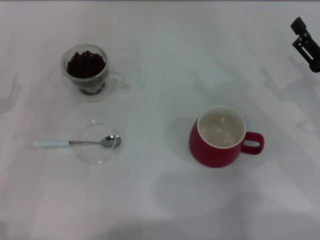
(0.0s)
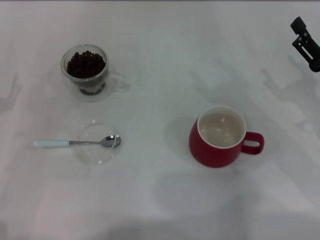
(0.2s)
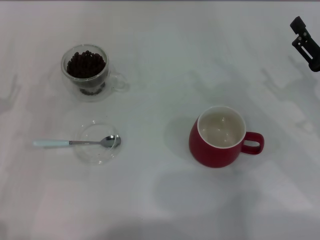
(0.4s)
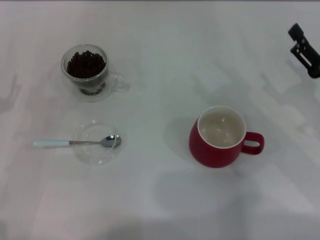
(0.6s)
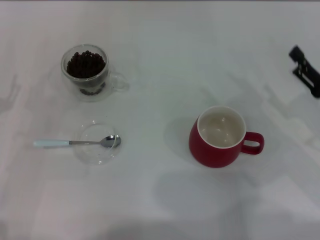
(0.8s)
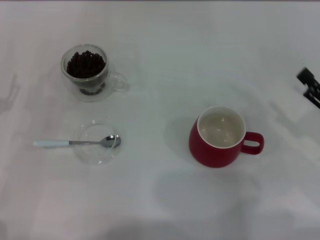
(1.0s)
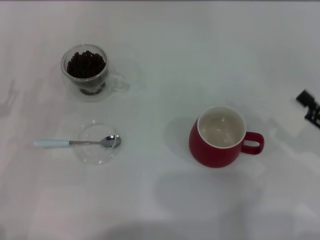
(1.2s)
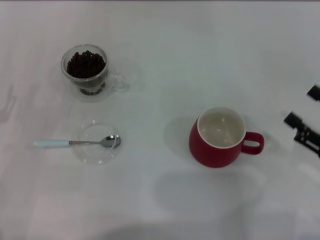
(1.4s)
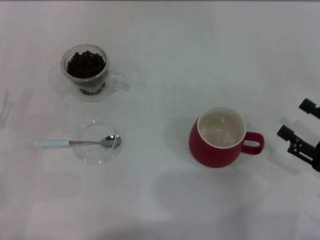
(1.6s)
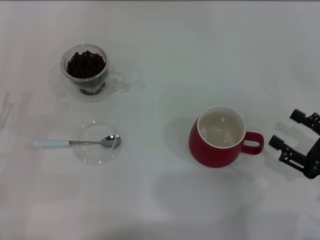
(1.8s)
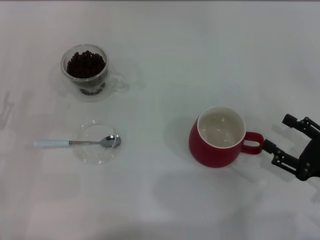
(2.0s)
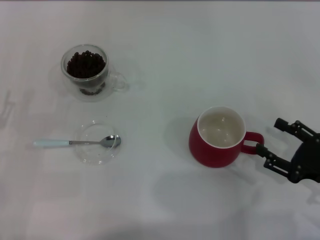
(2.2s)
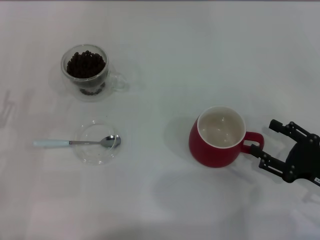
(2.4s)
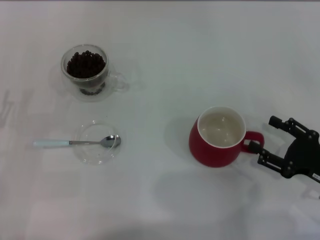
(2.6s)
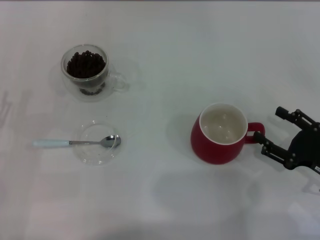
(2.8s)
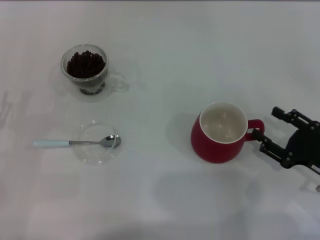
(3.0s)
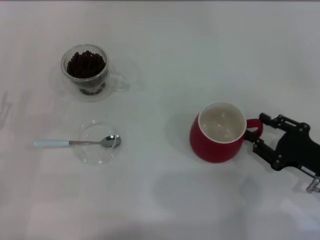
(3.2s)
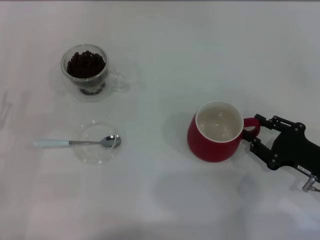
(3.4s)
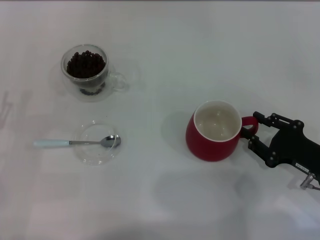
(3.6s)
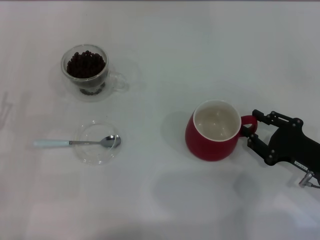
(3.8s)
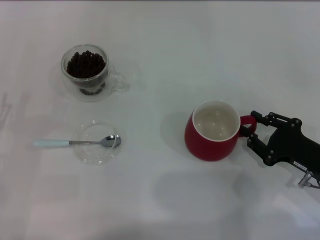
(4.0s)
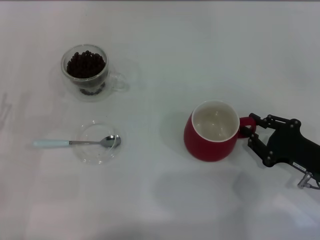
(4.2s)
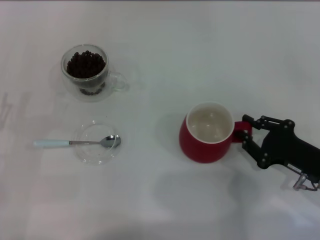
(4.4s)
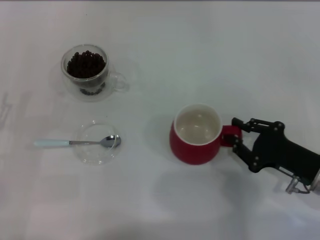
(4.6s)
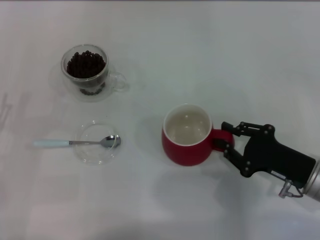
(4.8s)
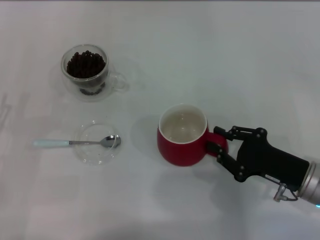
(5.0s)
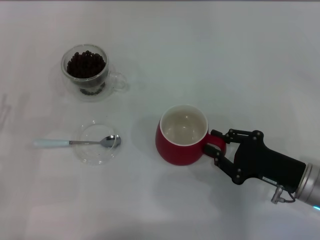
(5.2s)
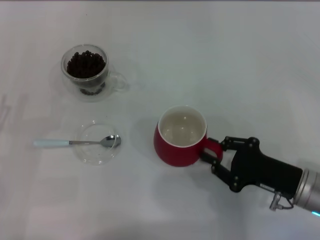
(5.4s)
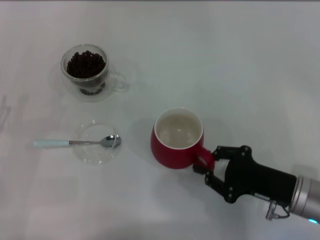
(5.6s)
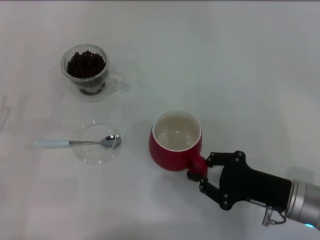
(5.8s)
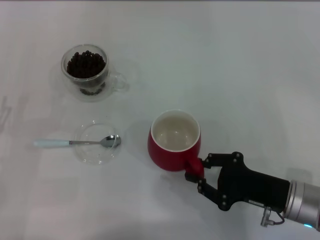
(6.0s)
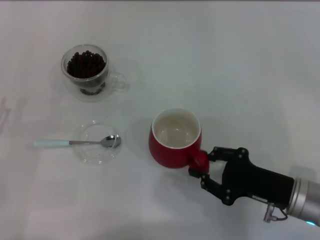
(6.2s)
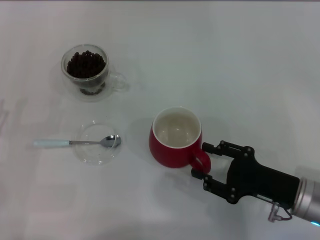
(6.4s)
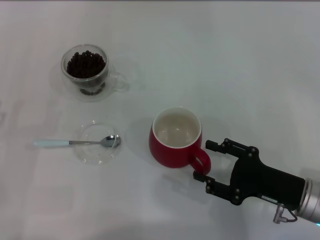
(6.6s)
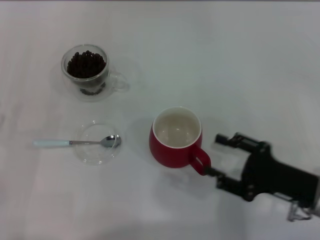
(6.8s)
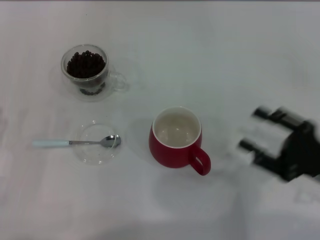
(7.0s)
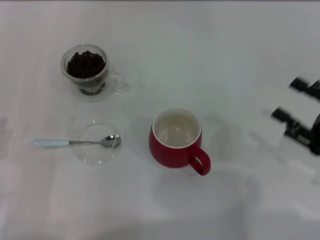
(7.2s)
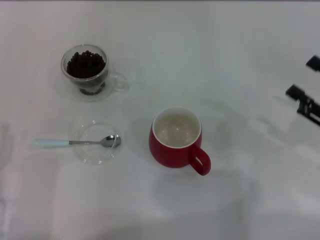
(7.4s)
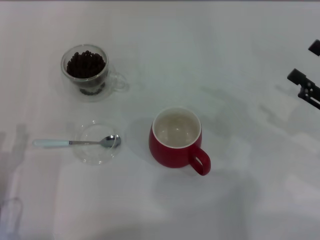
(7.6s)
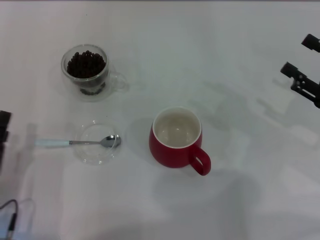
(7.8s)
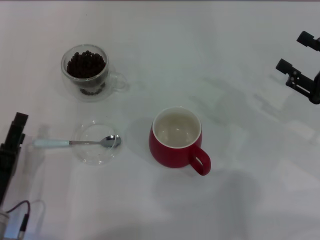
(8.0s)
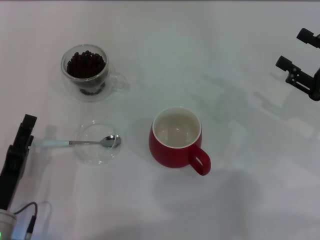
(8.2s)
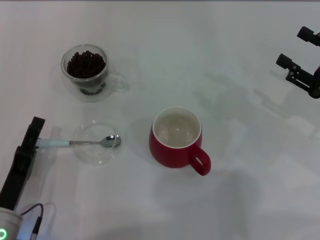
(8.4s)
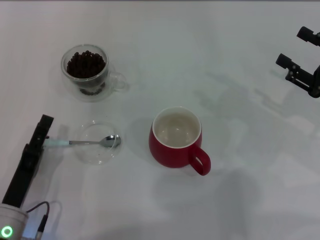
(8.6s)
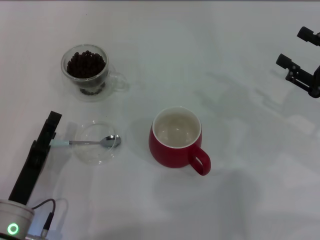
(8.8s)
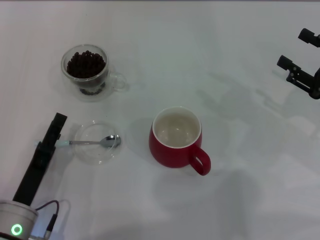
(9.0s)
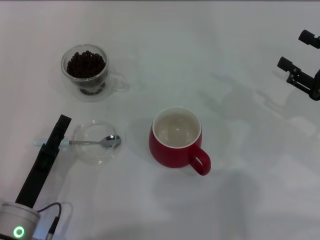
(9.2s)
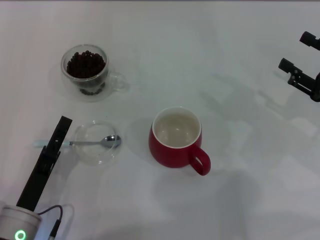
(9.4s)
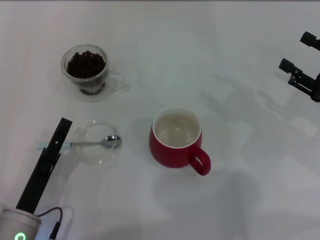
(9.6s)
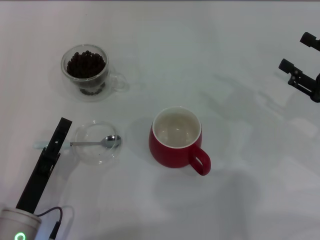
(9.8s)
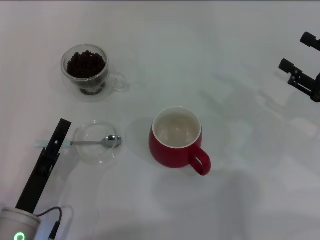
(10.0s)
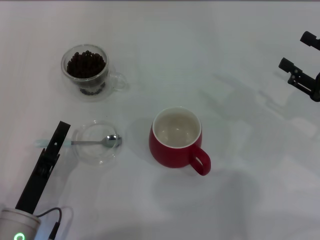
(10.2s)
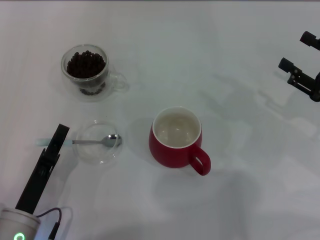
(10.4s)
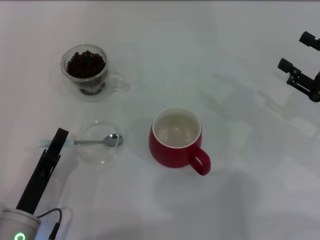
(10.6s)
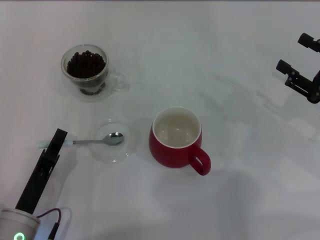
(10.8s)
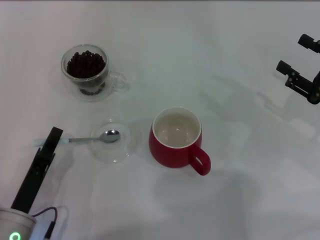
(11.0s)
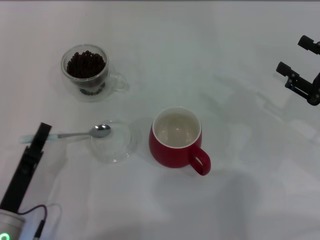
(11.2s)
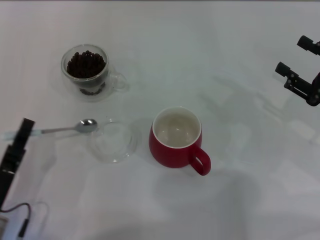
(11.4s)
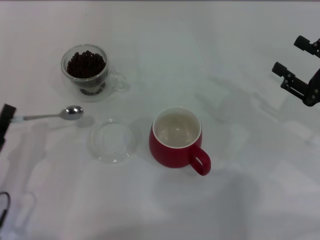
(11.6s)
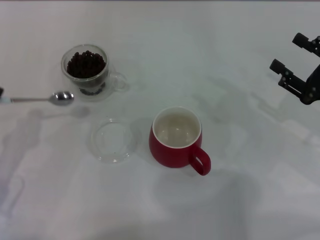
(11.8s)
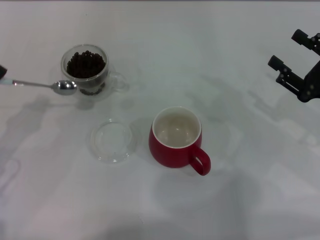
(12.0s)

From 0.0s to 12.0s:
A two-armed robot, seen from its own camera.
Task of the whole recording: Use a blue spoon to take out the coffee beans from the glass and pour them into the red cup.
Step, from 0.0s to 6.6s: Move the cup to the center of view with the left gripper.
Step, from 7.0s to 11.2s: Pick up the spoon with the right gripper.
From 0.0s to 1.6s: The right gripper heads backward, covering some 10 cm.
From 1.6s to 3.0s: The grippers make only small movements.
From 3.0s to 4.4s: The right gripper closes its fingers.
From 4.4s to 6.0s: The right gripper travels to the left by about 5 cm.
From 6.0s to 7.6s: The left gripper shifts roughly 10 cm backward and to the right. The right gripper moves to the right and upward, about 15 cm, and opens its fingers.
From 7.6s to 9.0s: The left gripper is displaced to the right by roughly 5 cm.
From 9.0s to 10.4s: The left gripper closes its fingers.
From 10.4s to 12.0s: The left gripper moves to the left, forward and upward, about 15 cm, and closes.

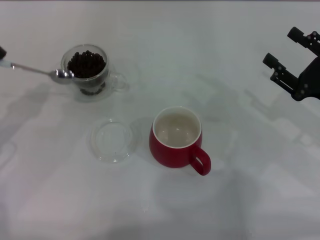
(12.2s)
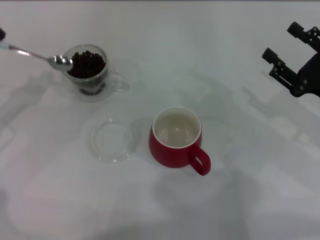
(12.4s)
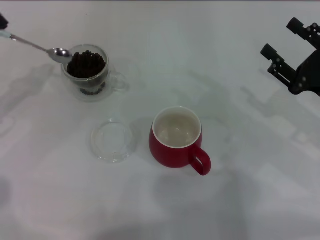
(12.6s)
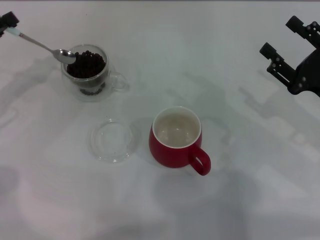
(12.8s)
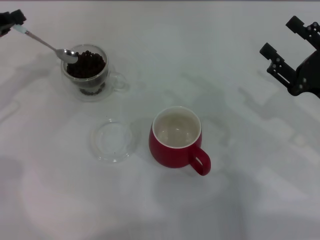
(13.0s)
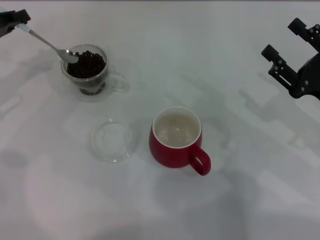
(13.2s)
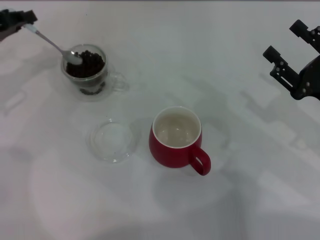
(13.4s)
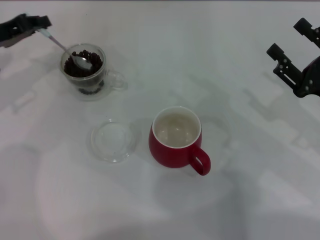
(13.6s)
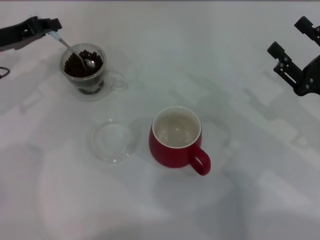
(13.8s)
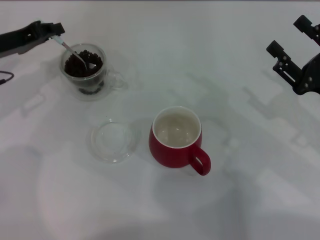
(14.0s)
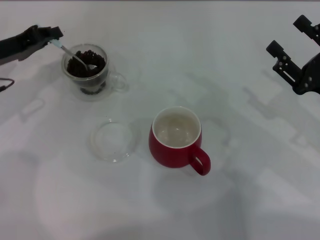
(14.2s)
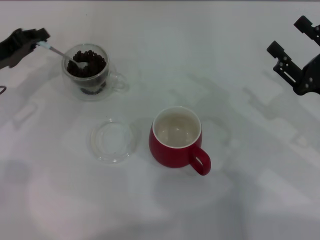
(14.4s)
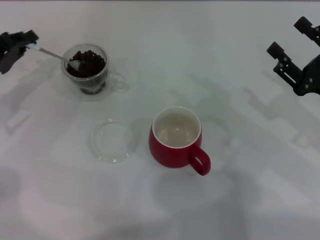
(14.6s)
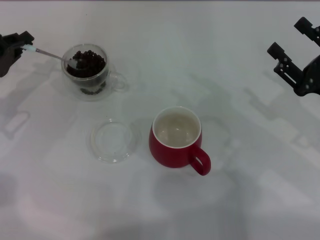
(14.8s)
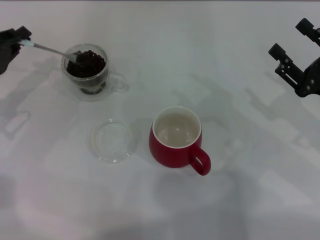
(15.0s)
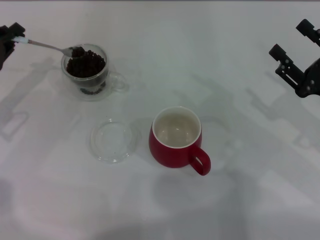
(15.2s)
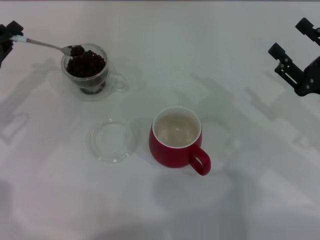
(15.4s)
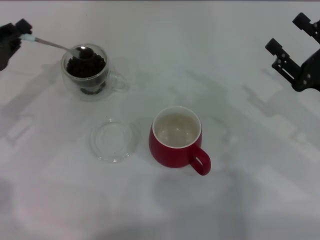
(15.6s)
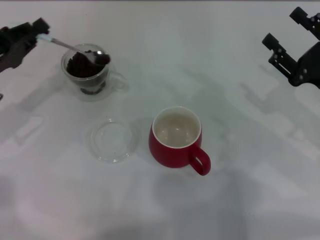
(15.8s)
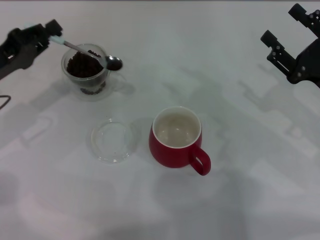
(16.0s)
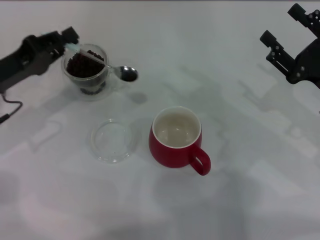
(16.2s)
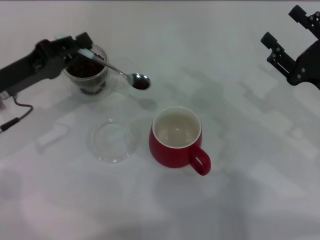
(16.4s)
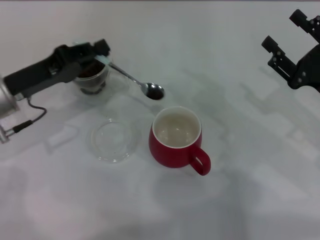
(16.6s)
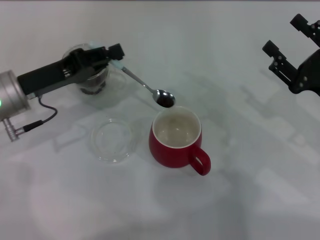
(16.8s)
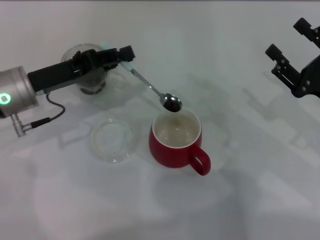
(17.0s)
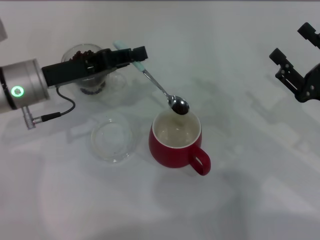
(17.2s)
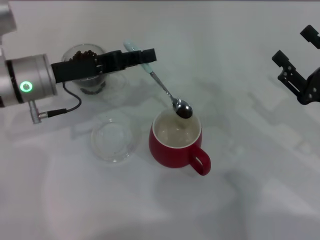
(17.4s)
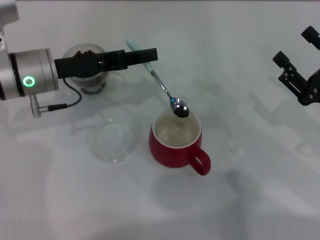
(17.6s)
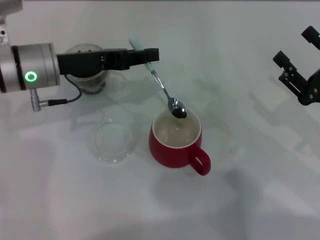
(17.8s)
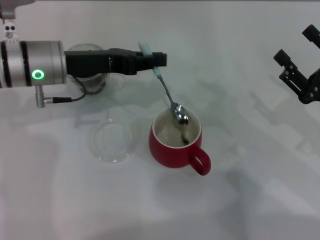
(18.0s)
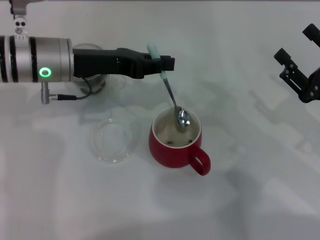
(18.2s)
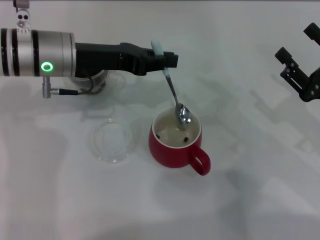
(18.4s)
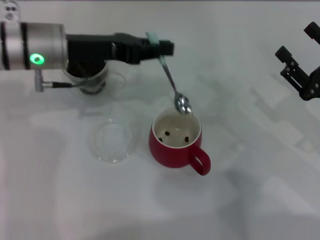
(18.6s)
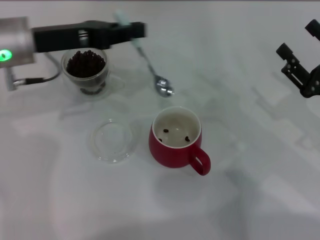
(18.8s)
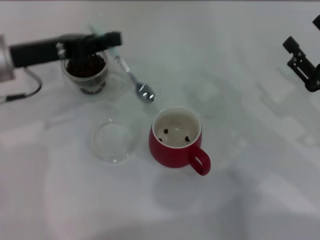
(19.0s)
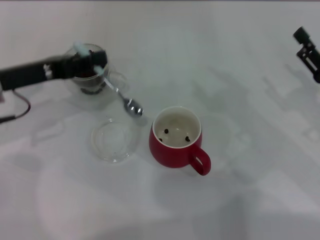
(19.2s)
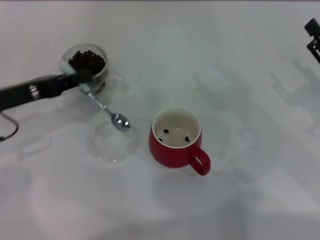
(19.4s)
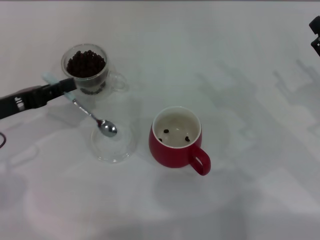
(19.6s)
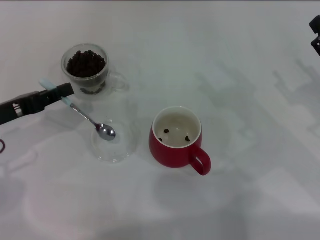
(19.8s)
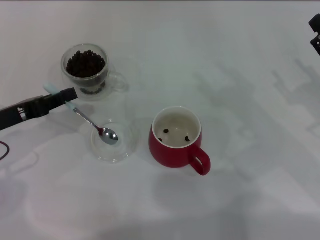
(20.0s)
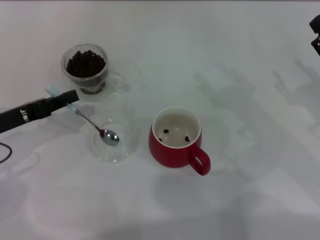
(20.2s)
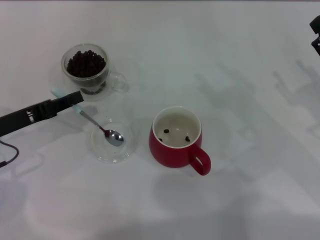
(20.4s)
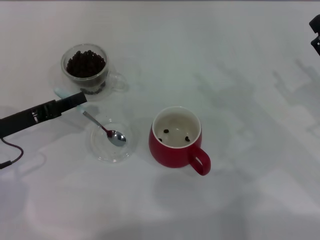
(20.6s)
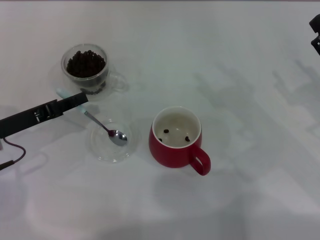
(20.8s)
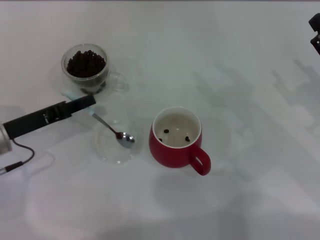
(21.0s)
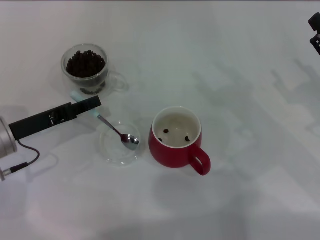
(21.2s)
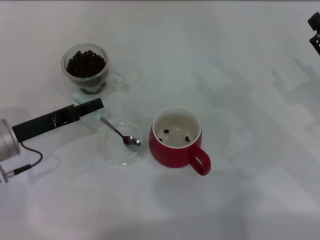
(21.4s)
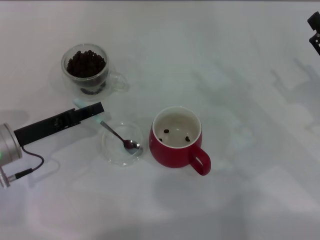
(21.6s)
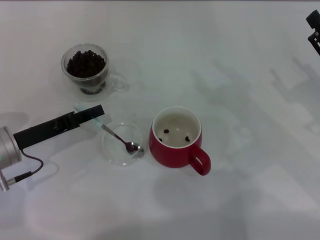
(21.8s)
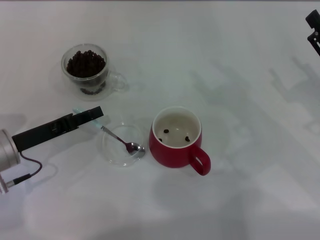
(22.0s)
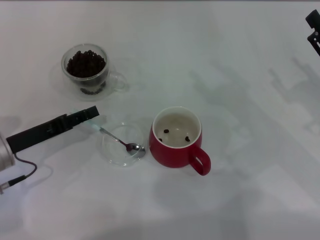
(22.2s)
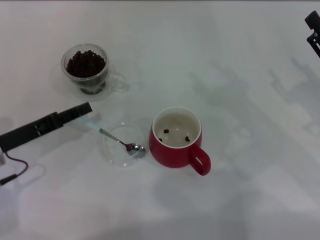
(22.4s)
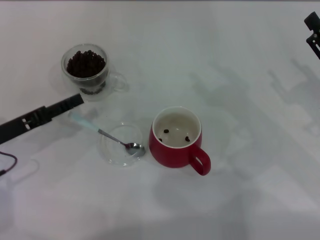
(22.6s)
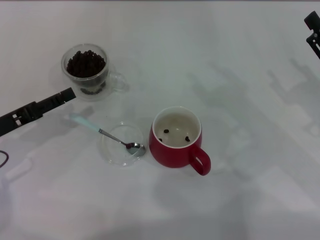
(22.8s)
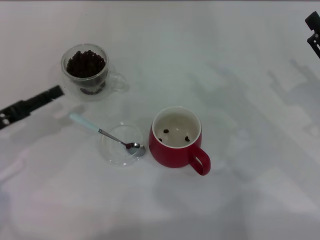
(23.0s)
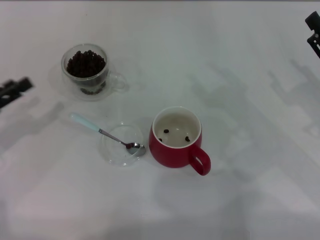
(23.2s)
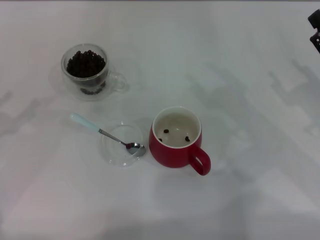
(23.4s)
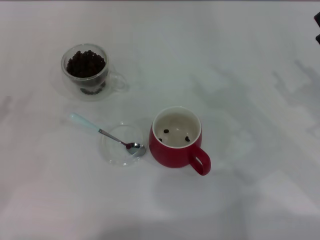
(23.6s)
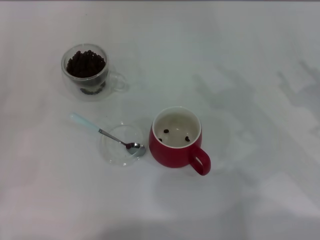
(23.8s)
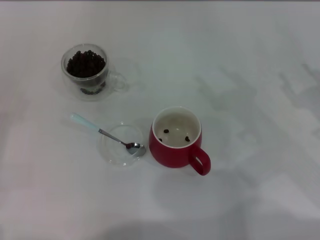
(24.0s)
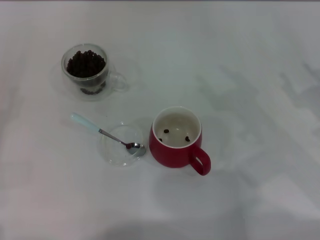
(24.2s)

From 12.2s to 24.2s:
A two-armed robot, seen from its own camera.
Task of the whole recording: Use a blue spoon to take out the coffee beans from the glass and pour them into the red cup.
Step, from 12.2s to 18.6s: Scoop a spoonful of beans into the cup with the right gripper.
From 12.2s to 13.8s: The left gripper shifts about 15 cm forward.
From 13.8s to 15.2s: The left gripper heads backward, covering about 5 cm.
From 15.2s to 16.6s: The left gripper travels to the right by approximately 10 cm.
From 16.6s to 18.2s: The left gripper shifts some 10 cm to the right and forward.
From 18.2s to 19.8s: The left gripper moves to the left and backward, some 15 cm.
From 19.8s to 21.2s: The left gripper changes place by roughly 5 cm.
From 21.2s to 22.6s: The left gripper opens its fingers.
From 22.6s to 24.2s: The left gripper heads to the left, covering some 10 cm, and opens up.
